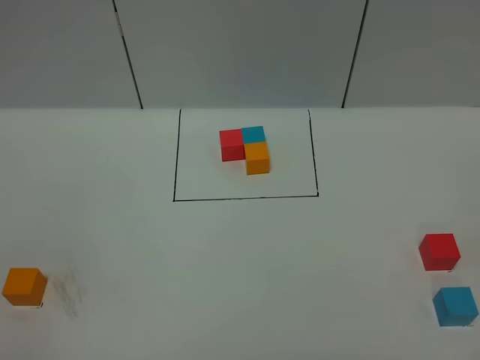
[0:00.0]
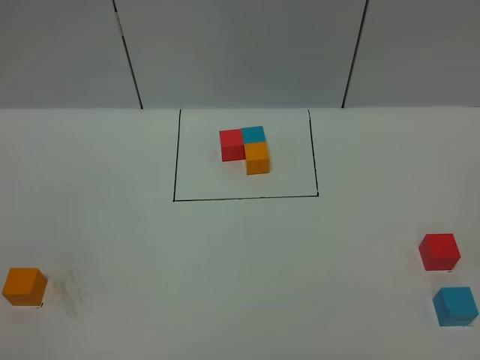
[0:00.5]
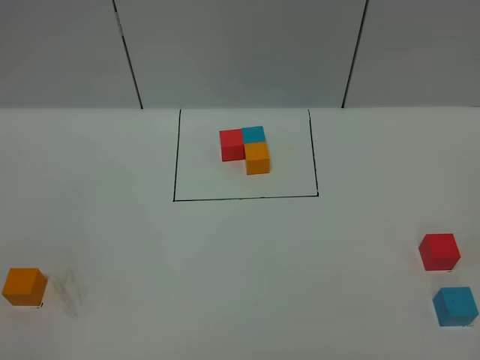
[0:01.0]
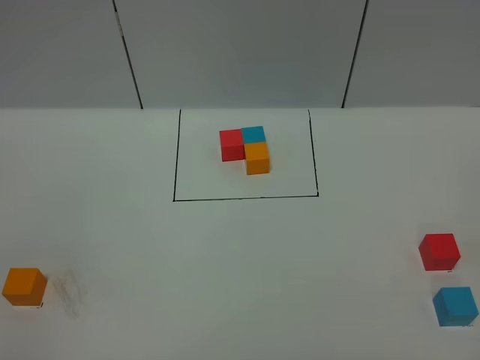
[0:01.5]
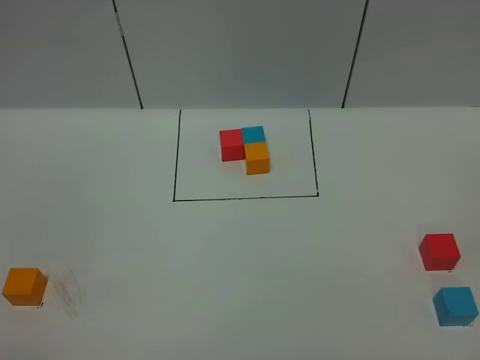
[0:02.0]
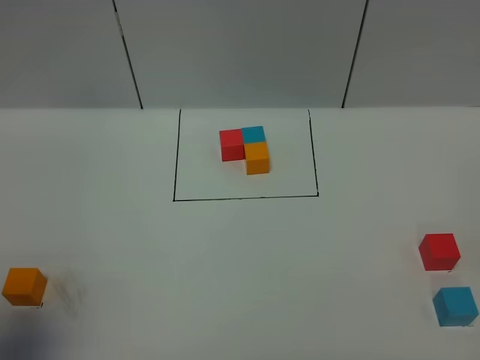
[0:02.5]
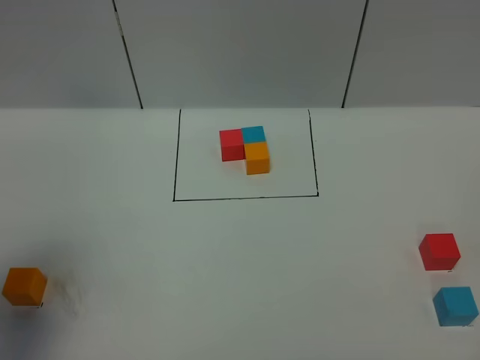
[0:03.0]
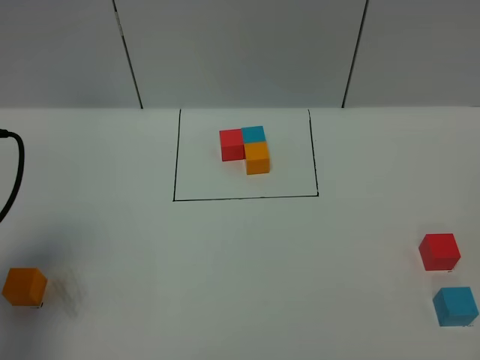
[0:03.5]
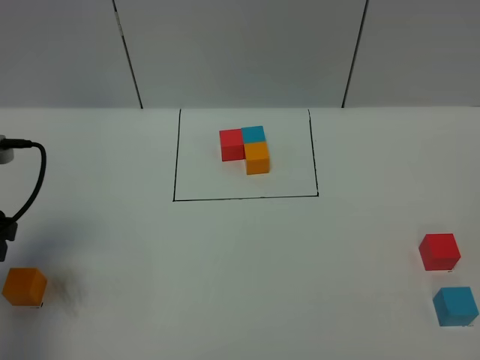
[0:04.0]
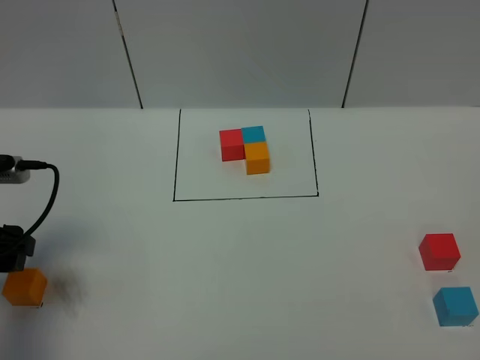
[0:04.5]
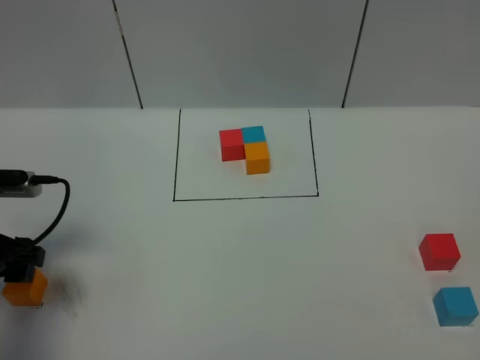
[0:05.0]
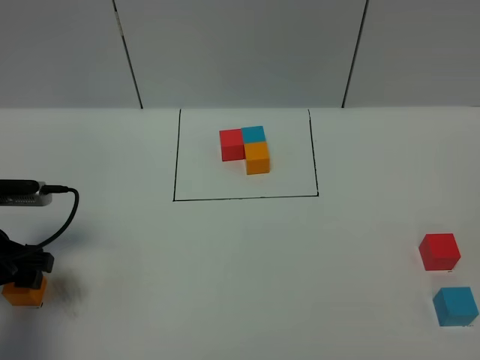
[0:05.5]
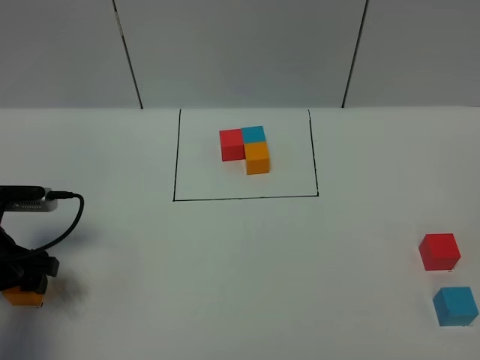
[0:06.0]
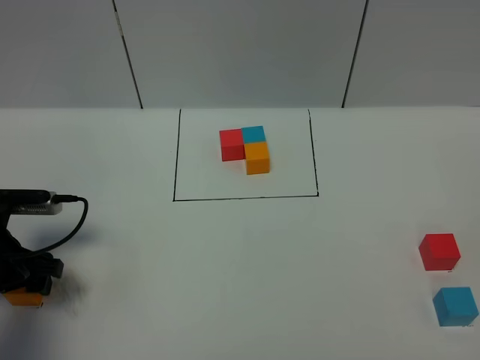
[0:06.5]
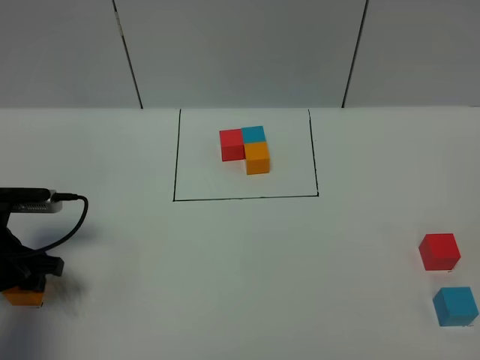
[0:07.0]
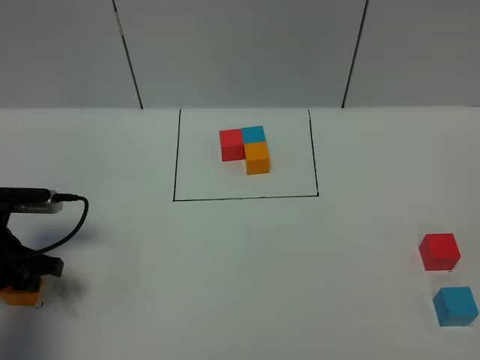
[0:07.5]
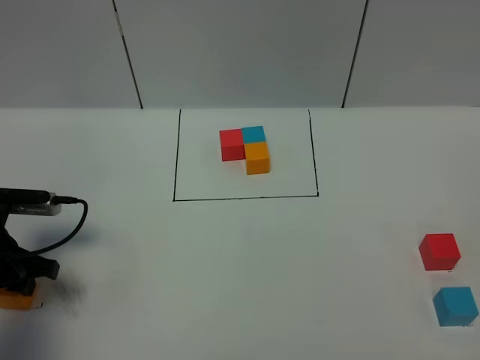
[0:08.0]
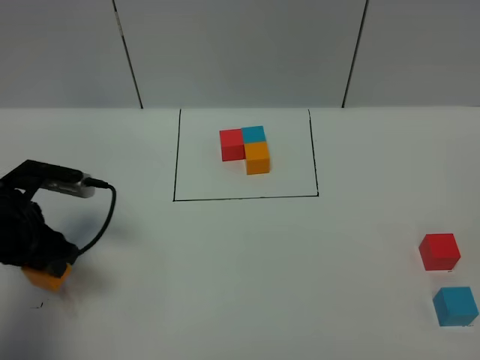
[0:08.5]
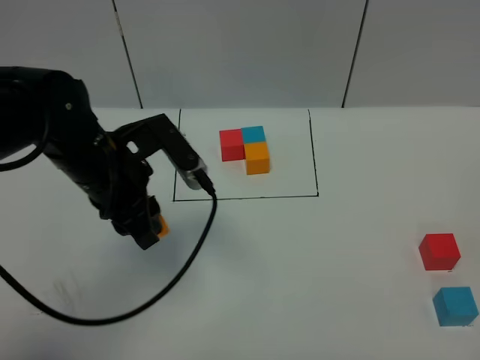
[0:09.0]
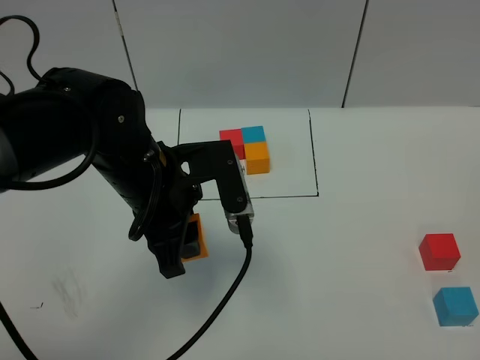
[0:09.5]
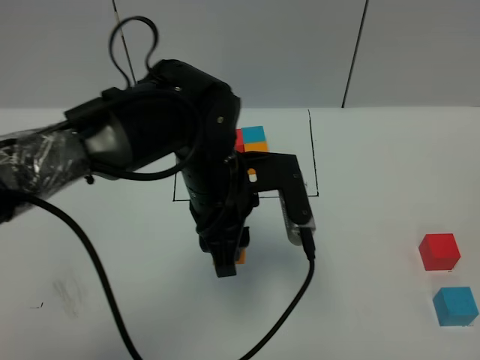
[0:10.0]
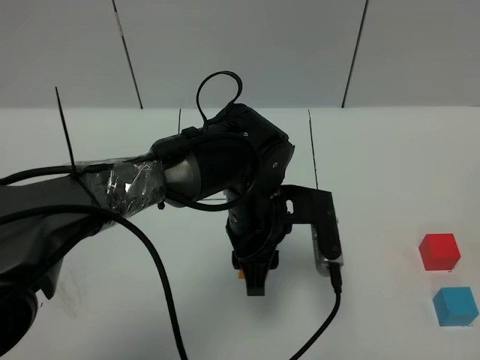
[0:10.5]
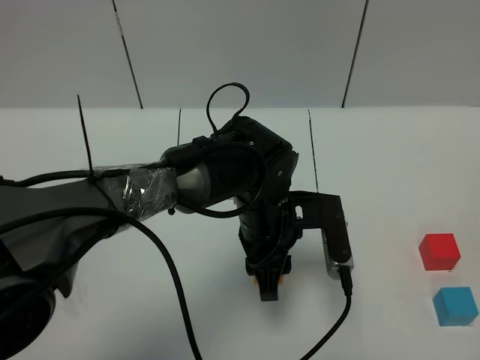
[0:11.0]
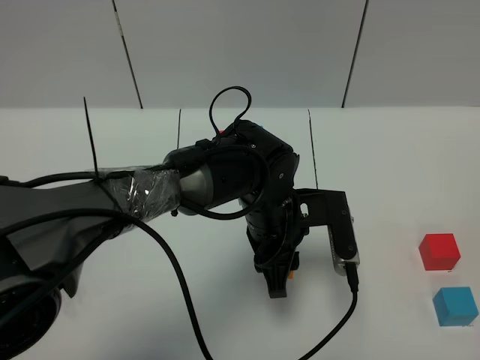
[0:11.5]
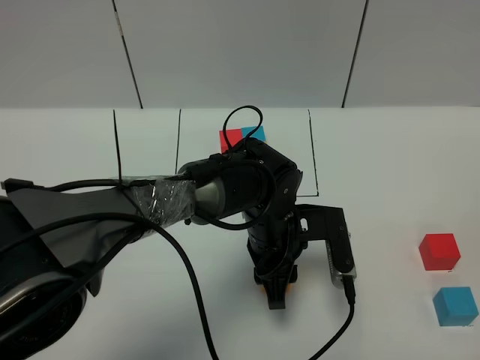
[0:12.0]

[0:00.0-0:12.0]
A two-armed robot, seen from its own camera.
Task of the whole recording: According to the building block template in front, assemble the scattered blocks together.
0:02.0 to 0:04.0: The left gripper travels forward by roughly 25 cm.
0:04.0 to 0:06.0: The left gripper travels downward by about 10 cm.
0:06.0 to 0:08.0: The left gripper closes its fingers.
0:08.0 to 0:10.0: The left gripper heads to the right, covering approximately 30 cm.
0:10.0 to 0:12.0: The left gripper is displaced downward and to the right by some 10 cm.

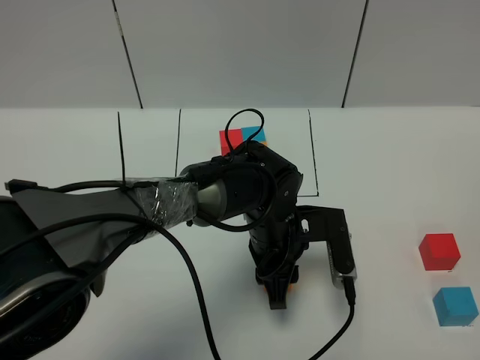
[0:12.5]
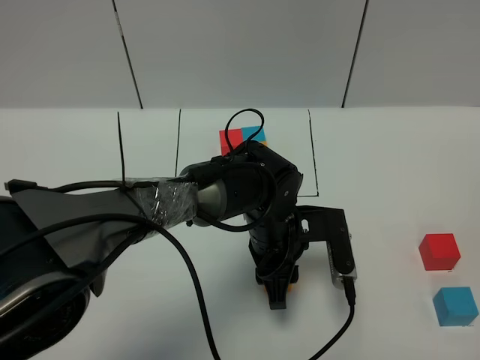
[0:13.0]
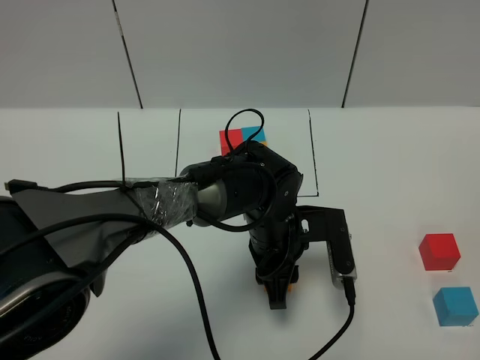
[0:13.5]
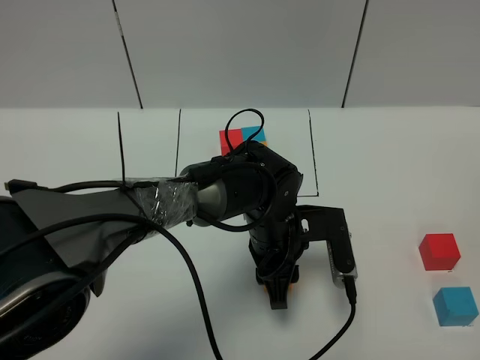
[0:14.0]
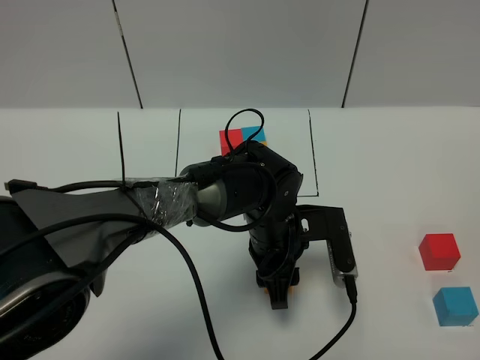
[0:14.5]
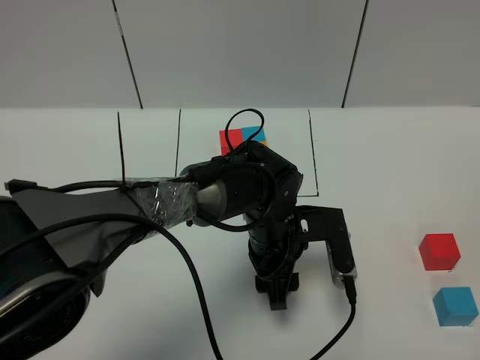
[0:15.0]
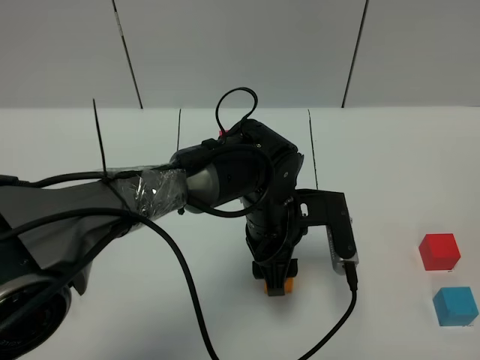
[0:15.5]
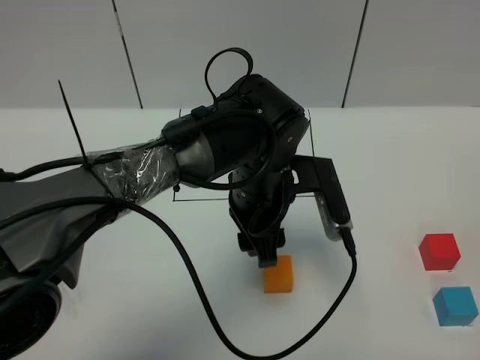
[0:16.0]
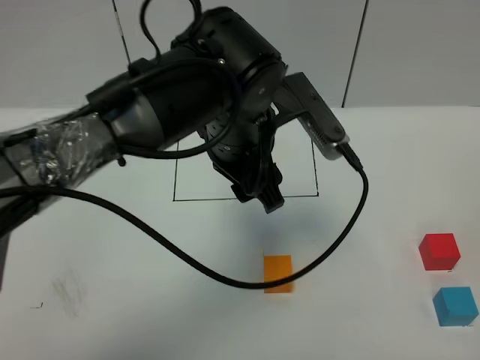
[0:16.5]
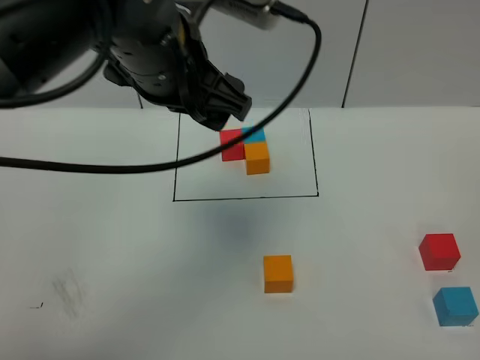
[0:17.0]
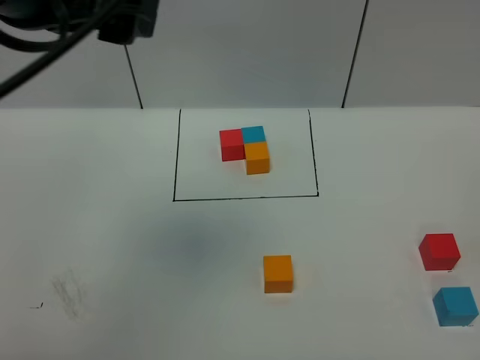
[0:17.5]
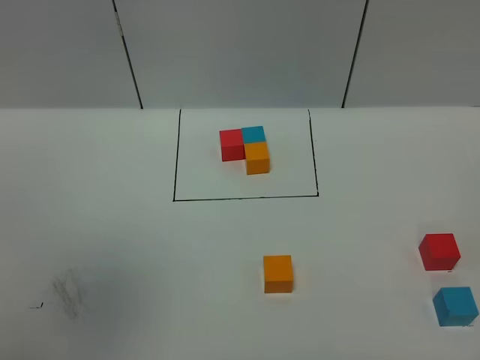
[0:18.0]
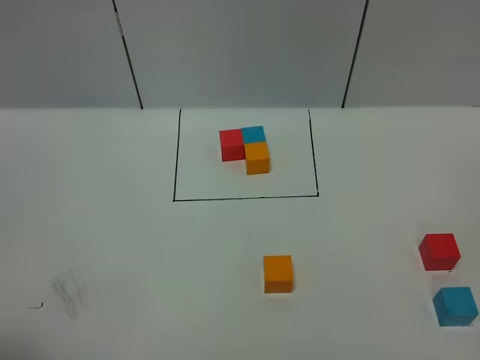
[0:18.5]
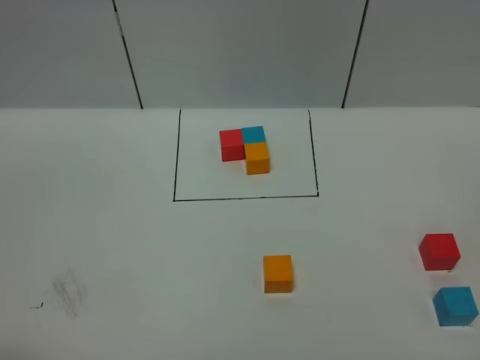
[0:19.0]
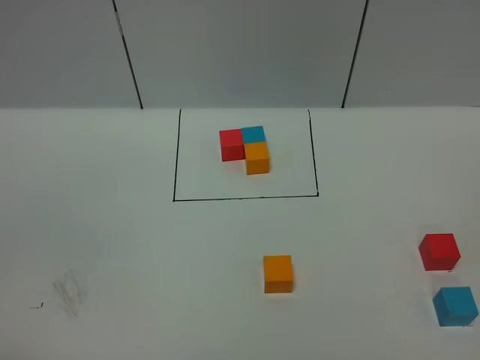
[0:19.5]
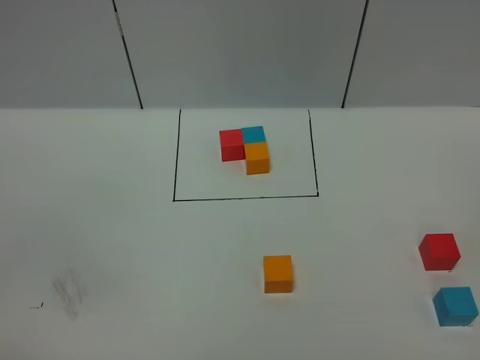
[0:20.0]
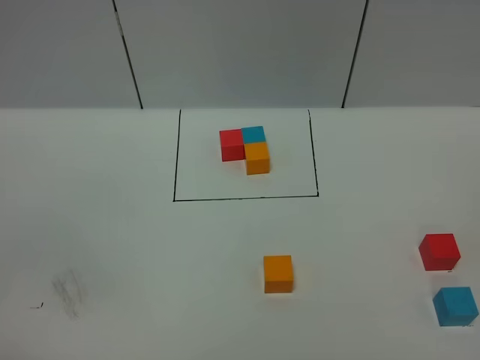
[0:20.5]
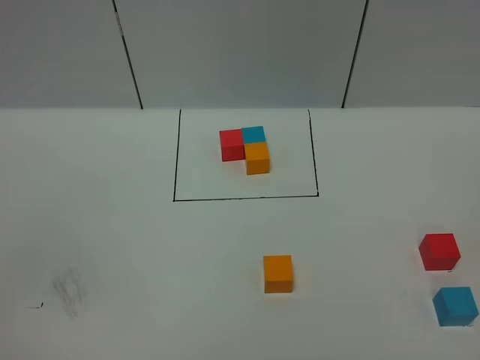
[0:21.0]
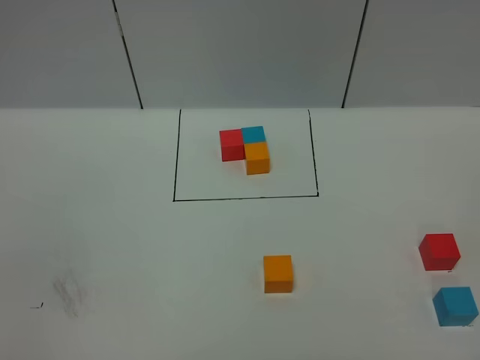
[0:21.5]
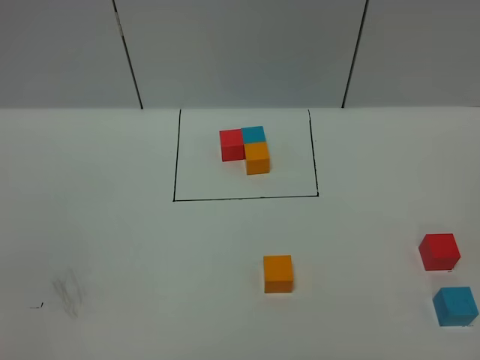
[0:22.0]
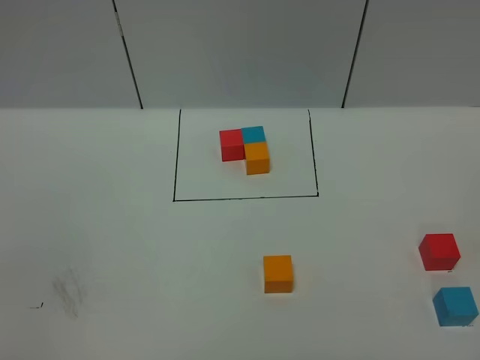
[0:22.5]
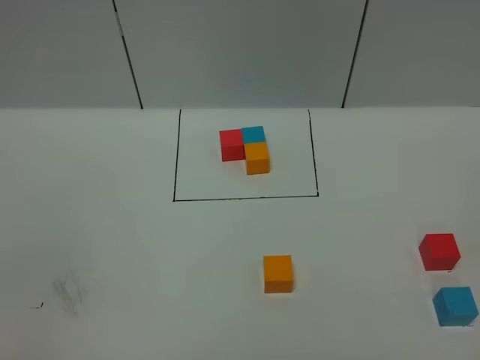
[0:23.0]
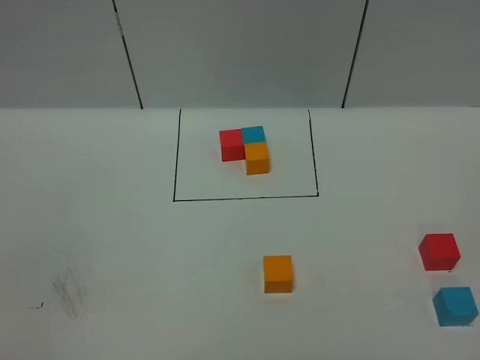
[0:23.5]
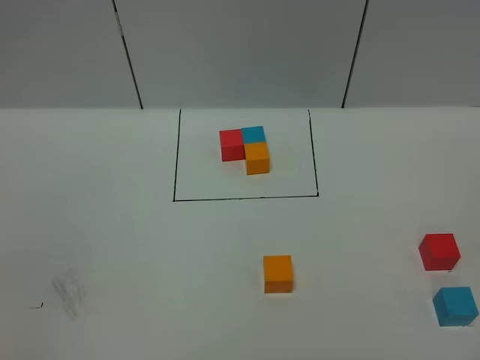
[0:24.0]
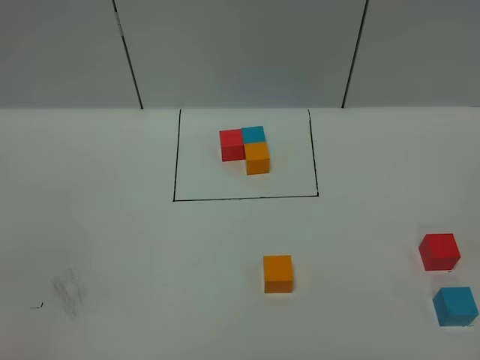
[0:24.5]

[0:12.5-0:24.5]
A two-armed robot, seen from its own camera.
Task of the whole recording: According to the building block template in front, assemble the scattered blocks together.
0:12.5 to 0:14.5: The two grippers keep their place.
0:14.5 to 0:16.5: The left gripper shifts about 15 cm upward, and opens.
0:16.5 to 0:18.5: The left gripper moves to the left, backward and upward, approximately 50 cm.
0:22.5 to 0:24.5: Neither gripper changes place.

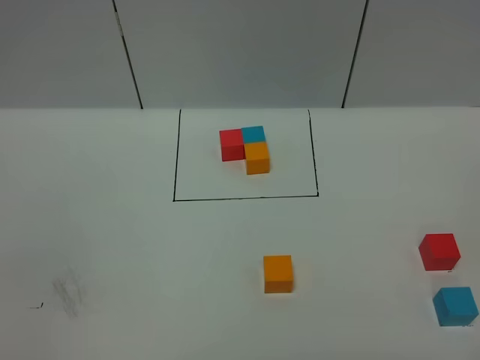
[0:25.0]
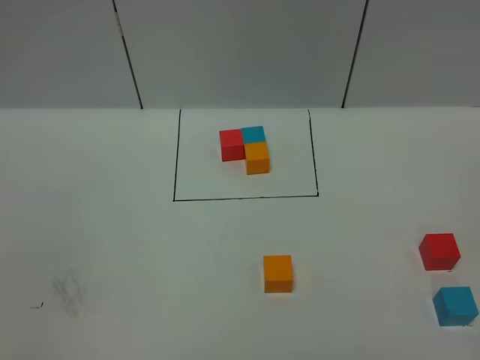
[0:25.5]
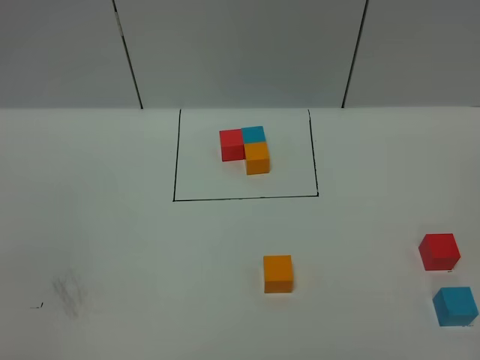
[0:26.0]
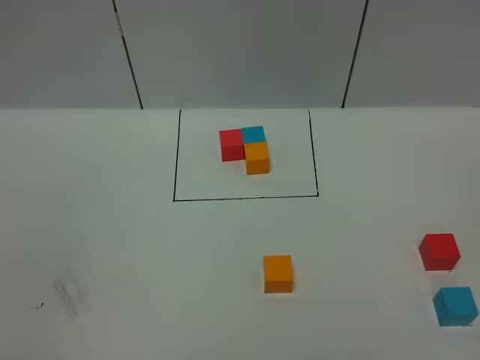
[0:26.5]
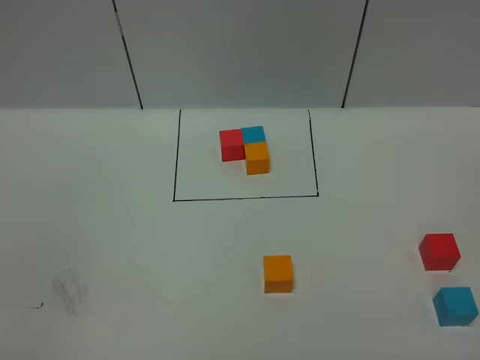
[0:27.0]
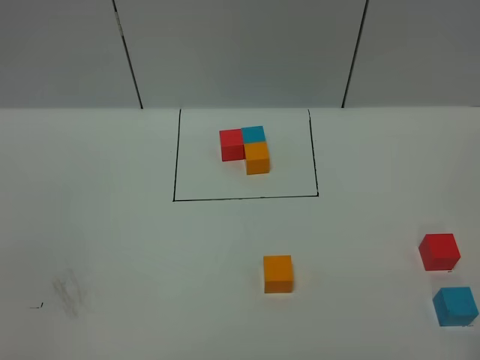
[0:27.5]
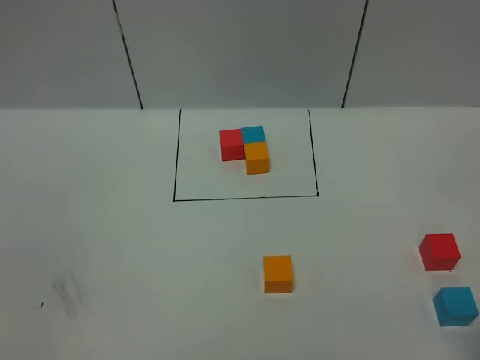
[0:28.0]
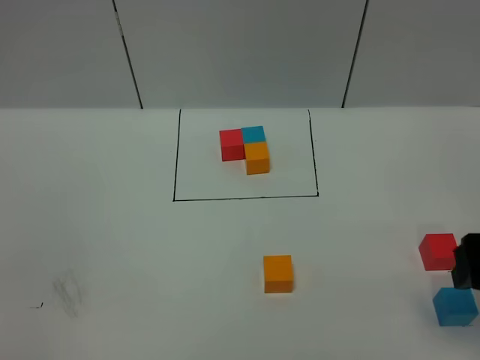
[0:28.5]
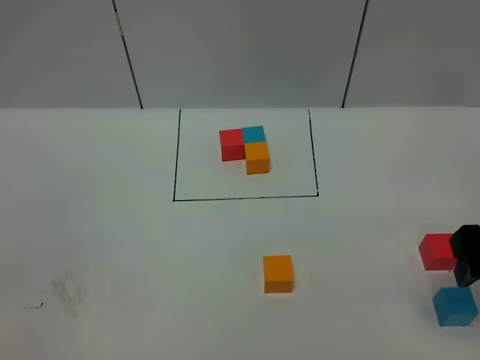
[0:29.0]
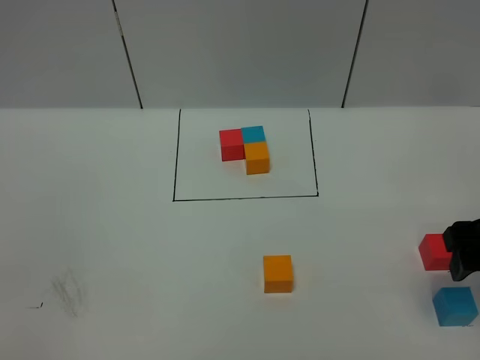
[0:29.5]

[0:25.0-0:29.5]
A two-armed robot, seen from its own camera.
Task of the whole recording: According to the building block template in front, assemble the scattered blocks together.
0:27.0 to 0:29.5: The right gripper goes some 15 cm forward.
